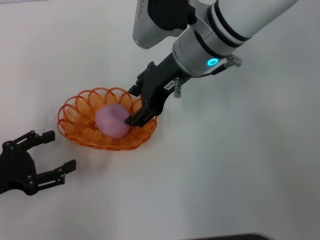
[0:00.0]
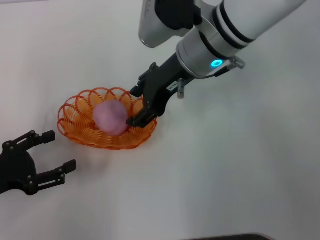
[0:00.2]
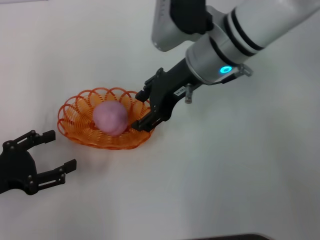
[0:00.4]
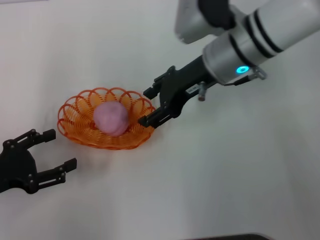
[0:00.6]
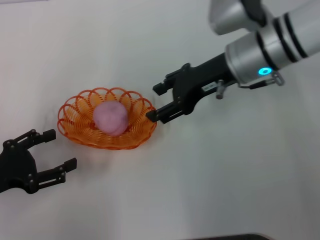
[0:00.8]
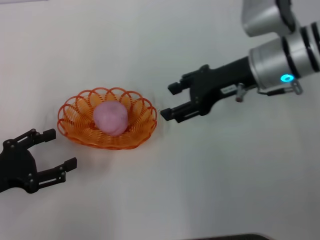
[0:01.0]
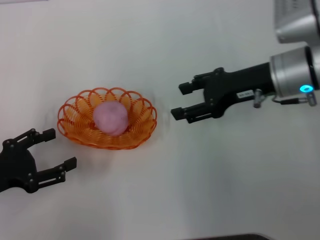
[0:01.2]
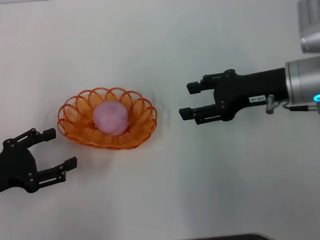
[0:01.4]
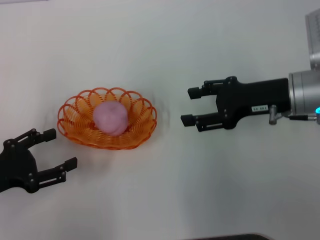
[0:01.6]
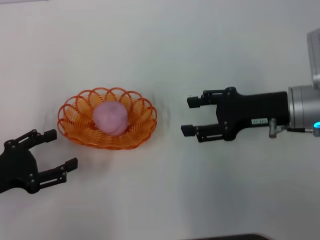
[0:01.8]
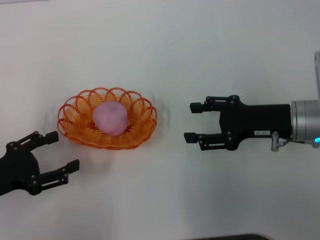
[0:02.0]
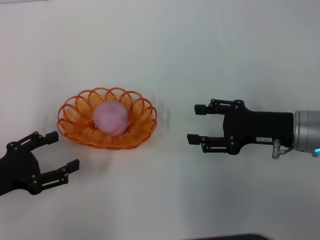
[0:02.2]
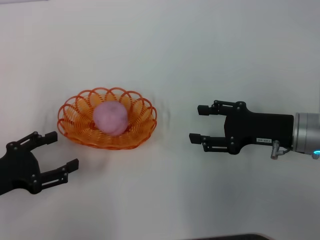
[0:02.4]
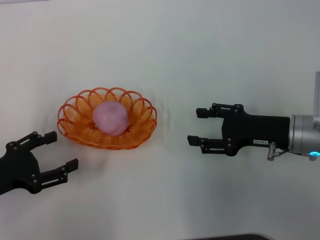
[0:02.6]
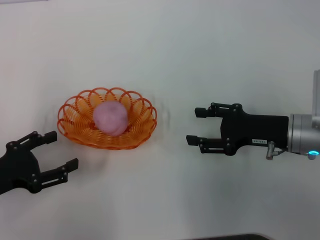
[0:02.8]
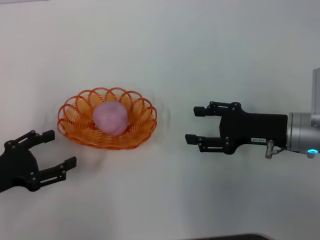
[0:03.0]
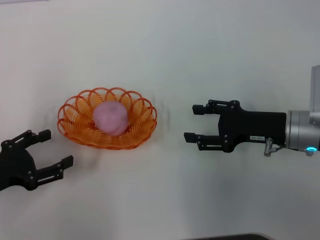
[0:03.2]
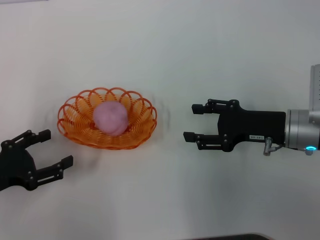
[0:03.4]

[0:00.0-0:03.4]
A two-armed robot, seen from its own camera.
0:00.0 to 0:01.6: The right gripper is displaced to the right and backward by approximately 15 cm.
0:01.6 to 0:03.4: The right gripper is displaced downward by approximately 5 cm.
